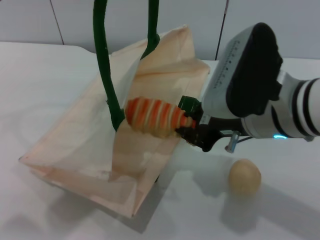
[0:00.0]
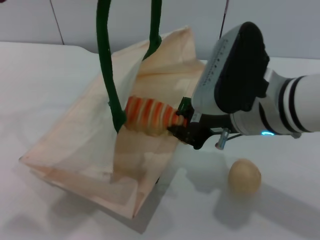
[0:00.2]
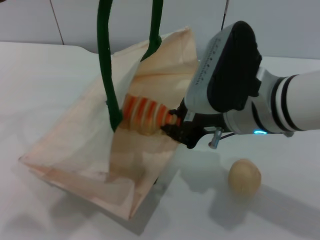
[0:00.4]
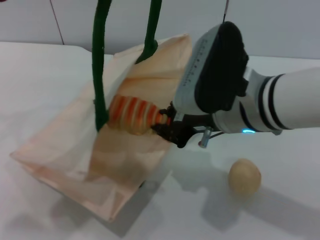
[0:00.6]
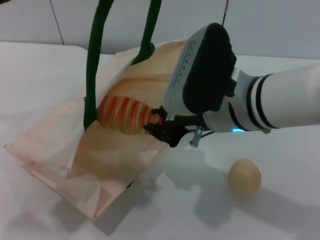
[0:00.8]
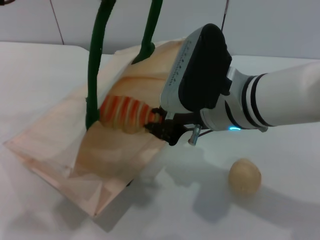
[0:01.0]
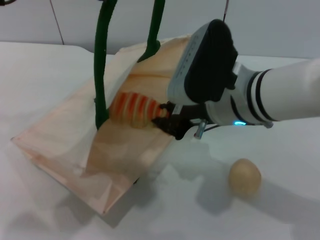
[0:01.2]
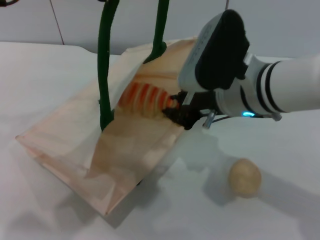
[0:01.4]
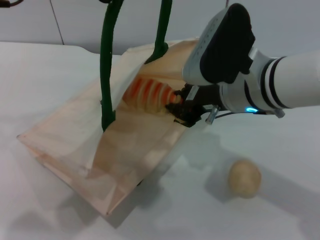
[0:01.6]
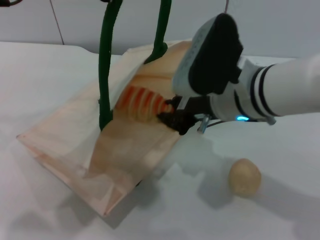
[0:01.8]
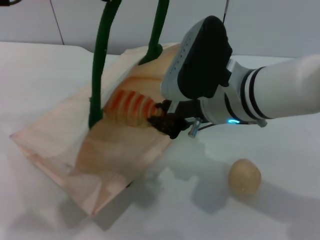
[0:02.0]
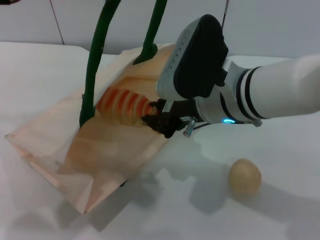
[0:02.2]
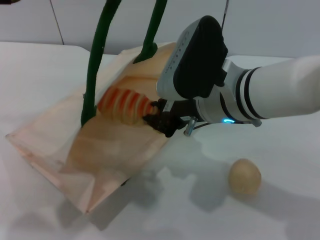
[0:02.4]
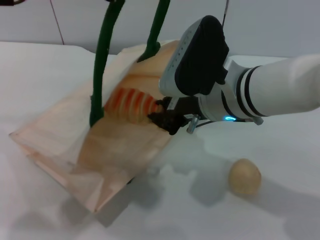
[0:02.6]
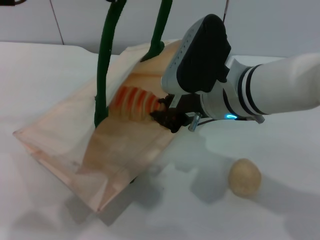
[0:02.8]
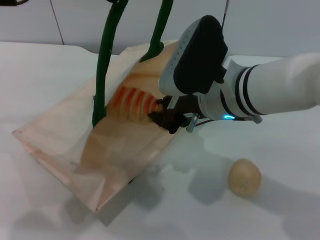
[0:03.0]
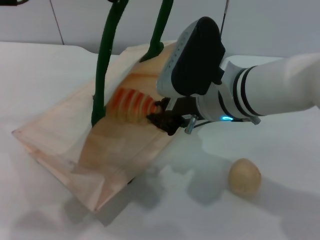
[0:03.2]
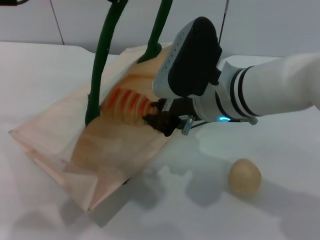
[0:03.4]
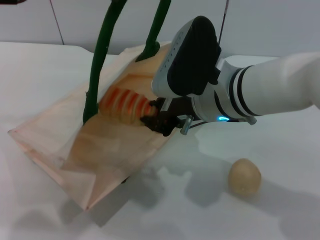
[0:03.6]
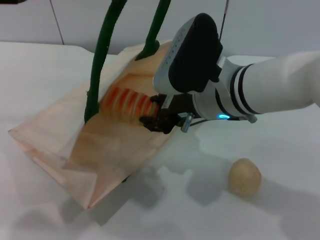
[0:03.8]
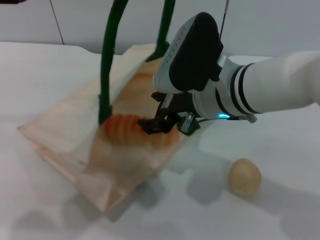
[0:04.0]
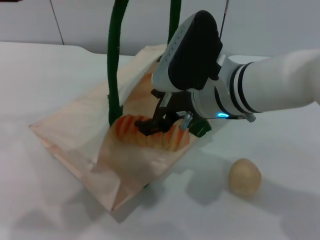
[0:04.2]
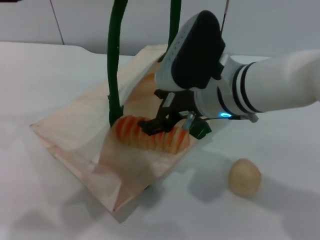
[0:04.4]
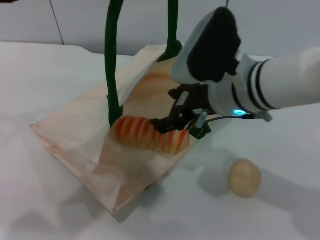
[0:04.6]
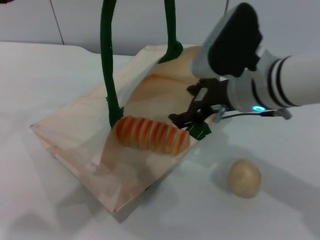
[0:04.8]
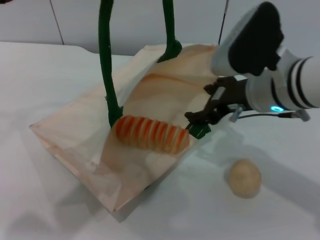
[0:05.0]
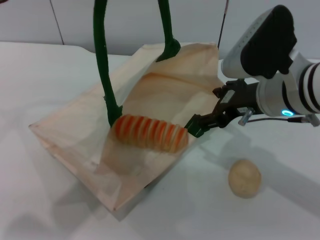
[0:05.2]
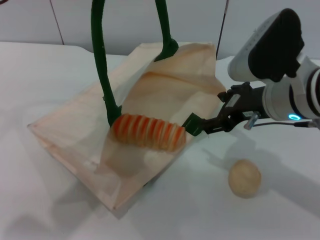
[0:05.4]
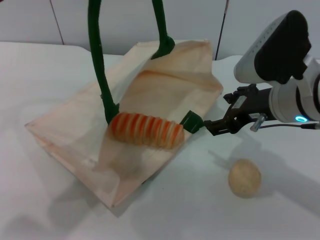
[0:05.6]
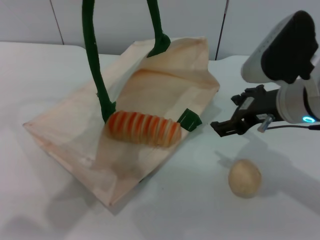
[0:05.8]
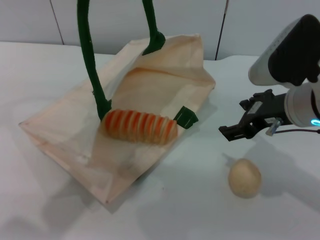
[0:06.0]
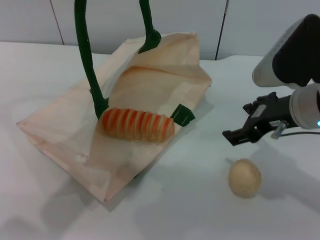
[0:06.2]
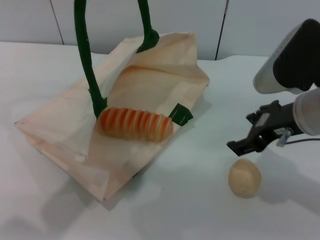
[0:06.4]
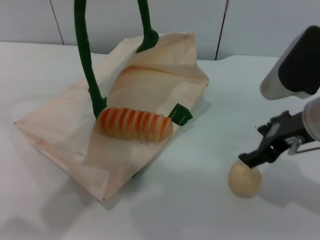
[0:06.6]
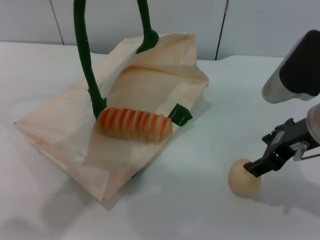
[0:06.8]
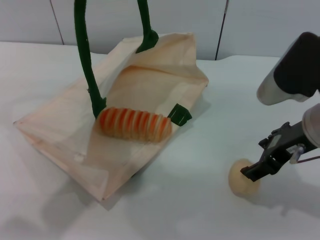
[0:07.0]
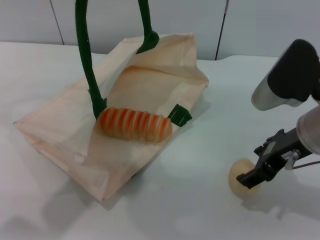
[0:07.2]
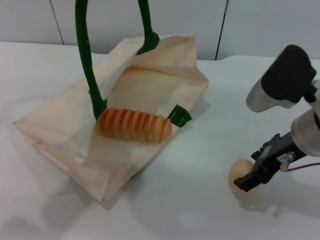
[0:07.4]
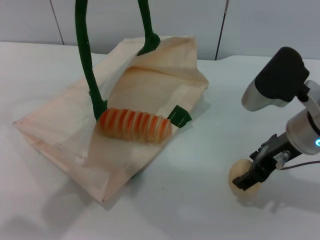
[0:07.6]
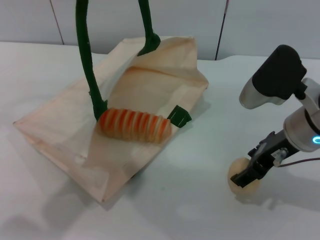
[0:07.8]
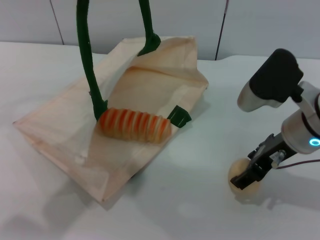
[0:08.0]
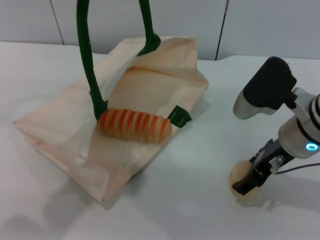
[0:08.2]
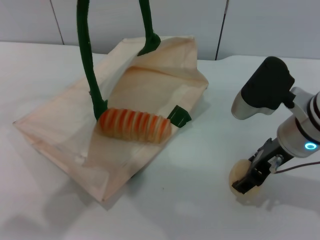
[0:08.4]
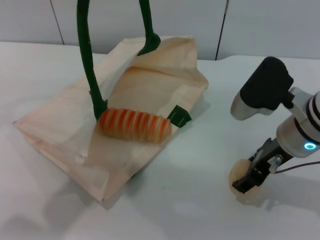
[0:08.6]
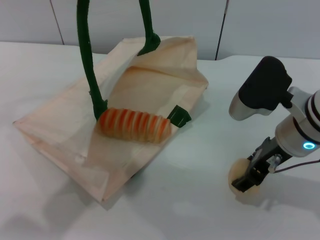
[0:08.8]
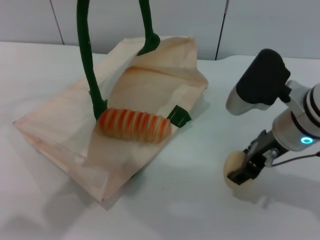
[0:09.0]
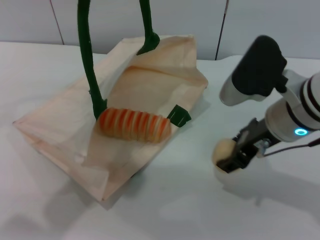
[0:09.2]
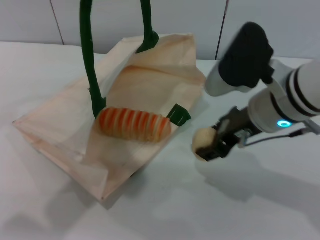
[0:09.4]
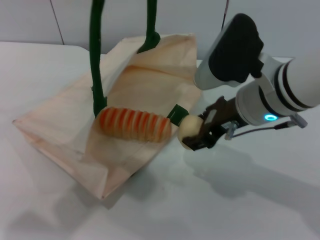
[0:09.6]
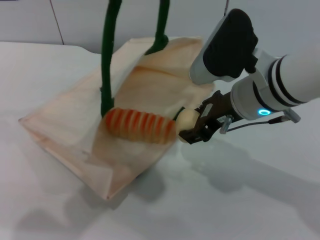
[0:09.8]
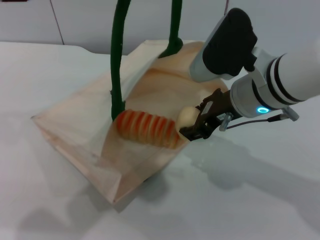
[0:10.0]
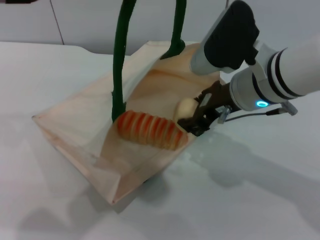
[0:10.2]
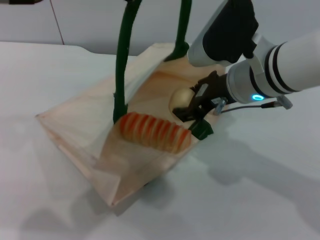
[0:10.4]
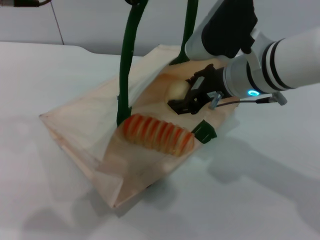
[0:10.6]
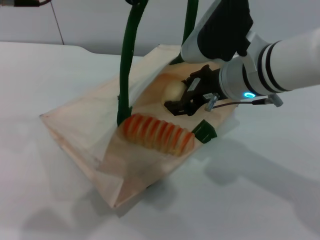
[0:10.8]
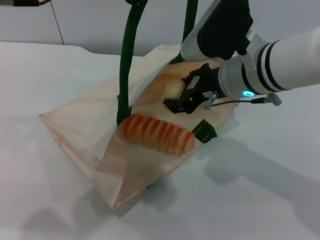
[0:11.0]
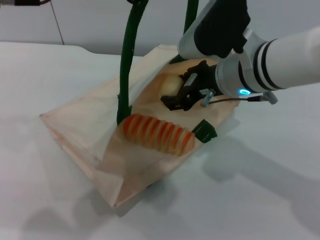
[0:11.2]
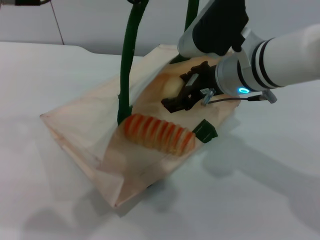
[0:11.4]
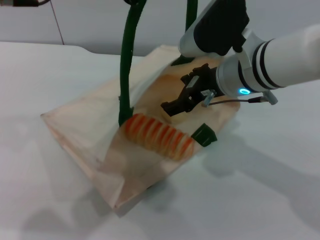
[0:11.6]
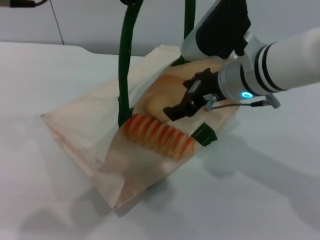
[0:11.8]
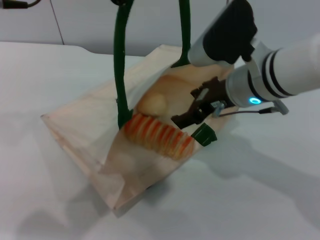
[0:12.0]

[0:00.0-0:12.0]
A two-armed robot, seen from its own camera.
Task of the whole recording: pick up the bread and egg yolk pastry from the table and place it in the white handbag.
Step, 0:00.0 to 0:04.6: Place the bread into the woven bag with the right gripper.
Step, 0:05.0 to 0:09.0: Pick up the egg yolk pastry with the right gripper.
Step, 0:09.4 to 0:11.8: Place the egg yolk pastry into the woven bag with the right gripper.
0:00.0 to 0:01.6: The right gripper changes place by approximately 5 cm.
0:01.6 to 0:03.0: The grippers make only small movements.
0:03.0 to 0:04.4: The right gripper opens up.
0:04.4 to 0:06.0: The right gripper moves to the right, approximately 10 cm.
0:07.6 to 0:09.0: The grippers make only small movements.
0:09.0 to 0:10.4: The right gripper travels to the left by approximately 5 cm.
0:10.4 to 0:12.0: The right gripper opens.

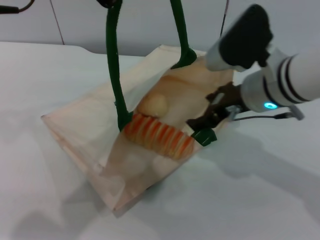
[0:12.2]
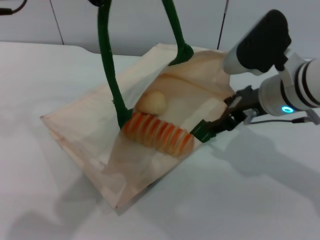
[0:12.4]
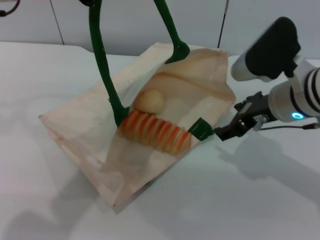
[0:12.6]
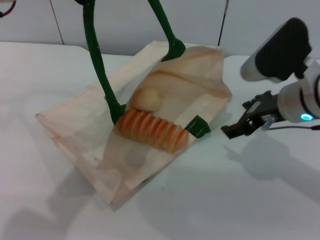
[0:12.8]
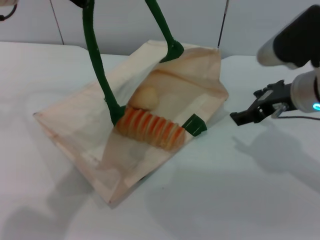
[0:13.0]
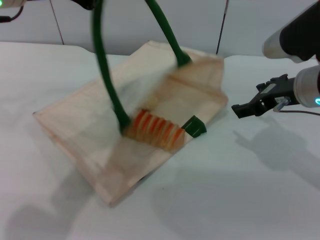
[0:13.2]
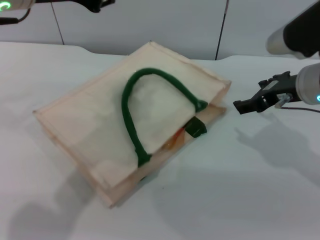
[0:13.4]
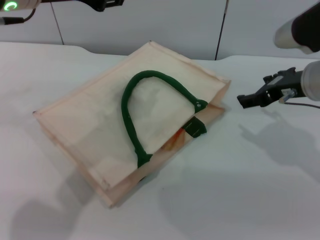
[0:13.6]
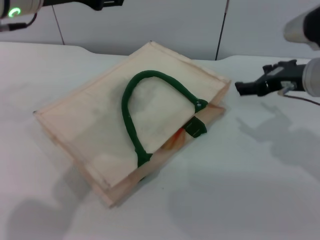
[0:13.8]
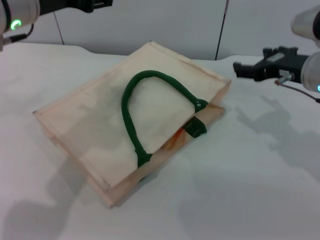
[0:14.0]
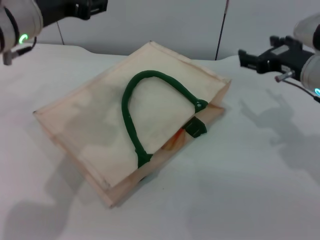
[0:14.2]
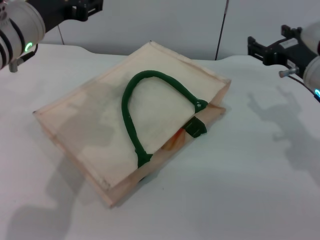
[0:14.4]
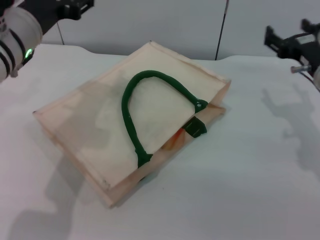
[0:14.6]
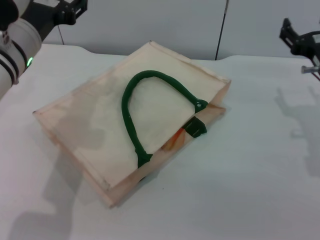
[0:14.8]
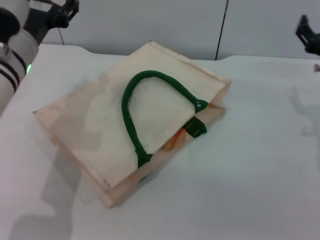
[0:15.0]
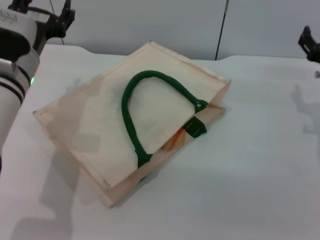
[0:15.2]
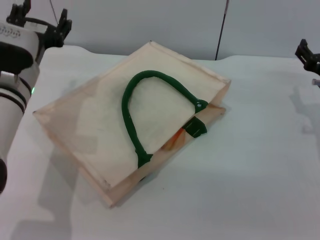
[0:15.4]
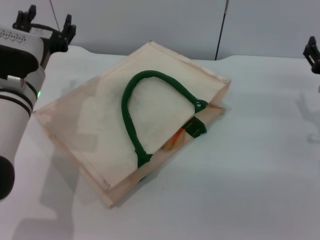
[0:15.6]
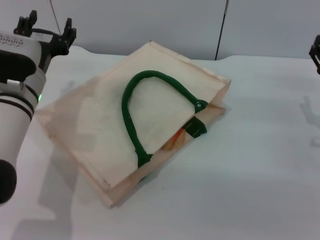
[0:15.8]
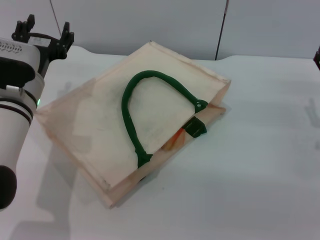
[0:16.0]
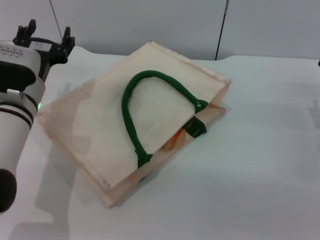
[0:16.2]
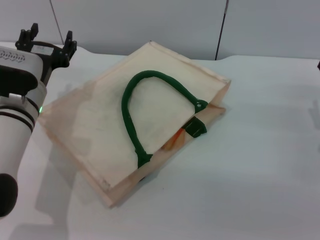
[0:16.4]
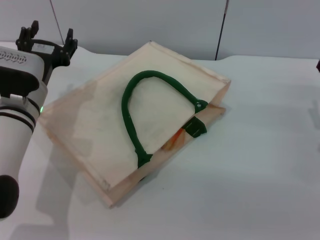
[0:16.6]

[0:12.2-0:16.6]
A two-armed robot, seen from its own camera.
Task of the whole recording: pick up the bread and egg yolk pastry from the table and place it in the white handbag.
Step, 0:12.2 to 0:13.6: Lower the woven bag with the left gripper to close it.
0:12.2 to 0:13.6: The right gripper shifts about 10 cm to the right.
0:13.6 to 0:15.2: The left gripper heads downward, covering roughly 15 cm, and opens up; the right gripper is displaced downward and to the right by roughly 10 cm.
0:15.2 to 0:16.6: The right gripper moves roughly 5 cm, while the left gripper travels downward by some 5 cm.

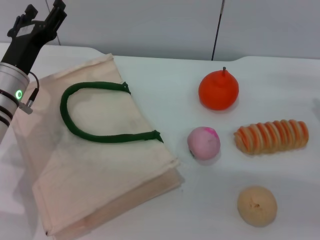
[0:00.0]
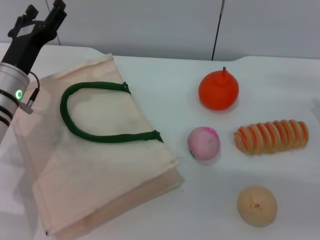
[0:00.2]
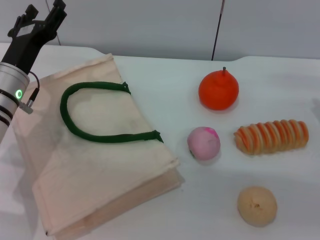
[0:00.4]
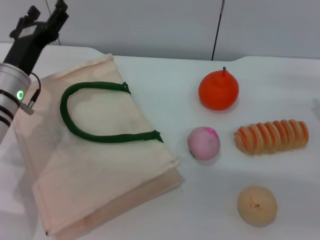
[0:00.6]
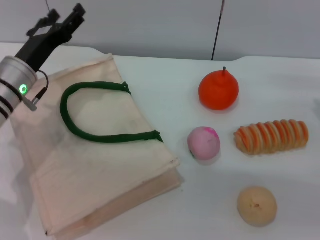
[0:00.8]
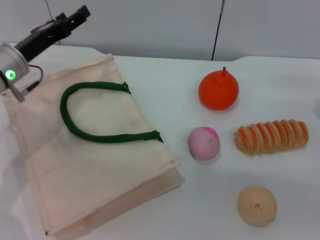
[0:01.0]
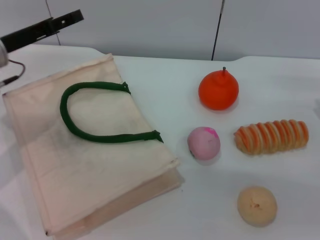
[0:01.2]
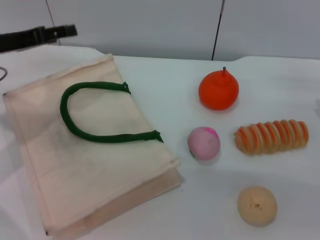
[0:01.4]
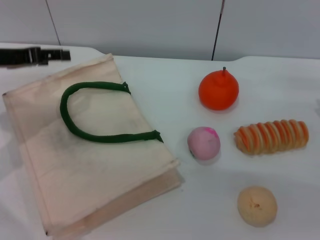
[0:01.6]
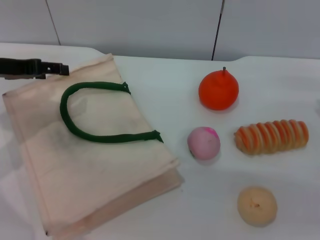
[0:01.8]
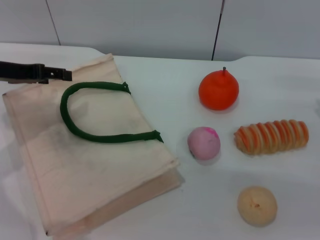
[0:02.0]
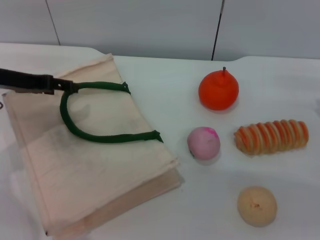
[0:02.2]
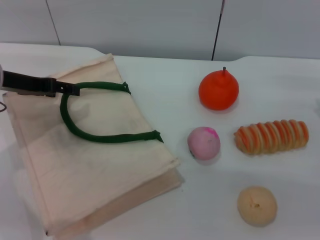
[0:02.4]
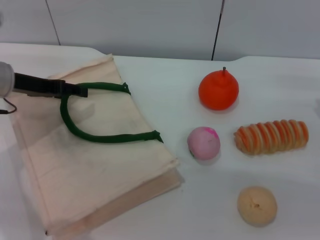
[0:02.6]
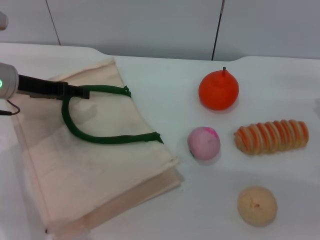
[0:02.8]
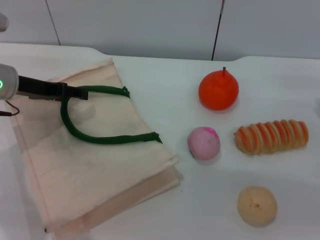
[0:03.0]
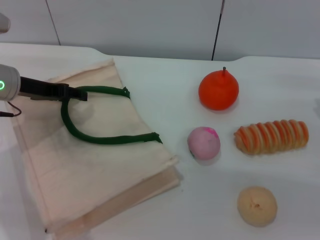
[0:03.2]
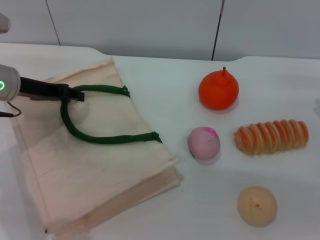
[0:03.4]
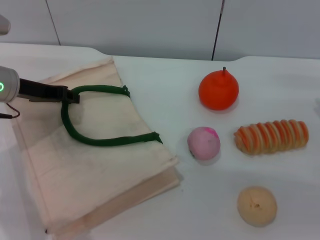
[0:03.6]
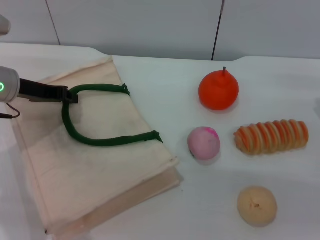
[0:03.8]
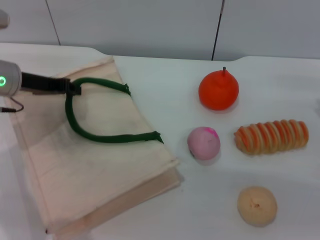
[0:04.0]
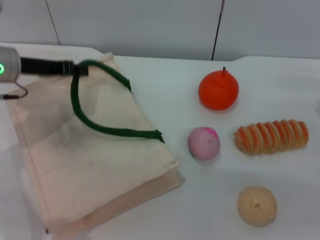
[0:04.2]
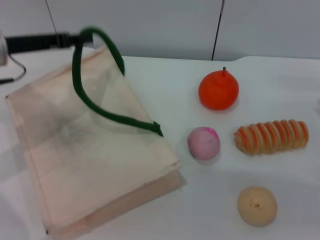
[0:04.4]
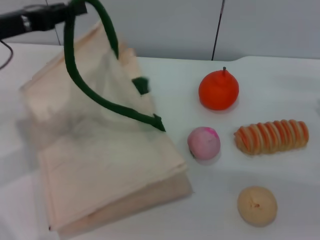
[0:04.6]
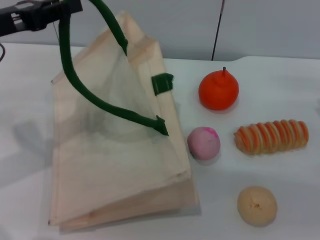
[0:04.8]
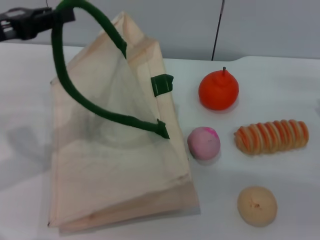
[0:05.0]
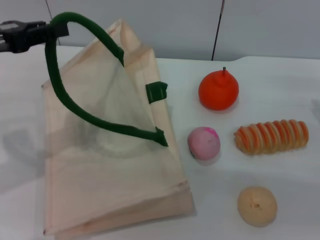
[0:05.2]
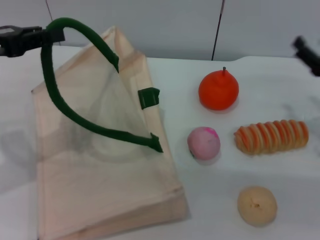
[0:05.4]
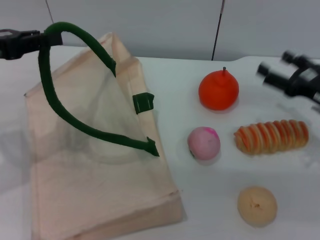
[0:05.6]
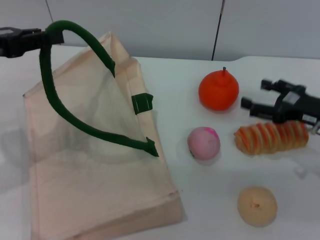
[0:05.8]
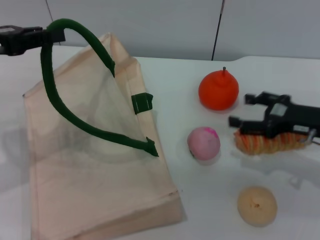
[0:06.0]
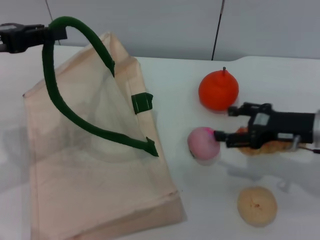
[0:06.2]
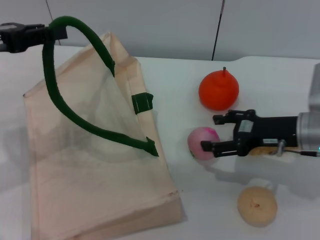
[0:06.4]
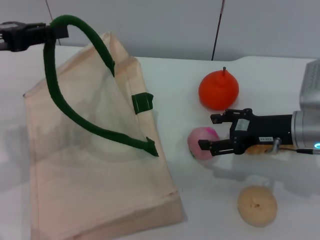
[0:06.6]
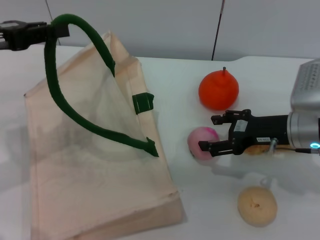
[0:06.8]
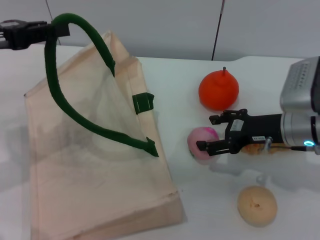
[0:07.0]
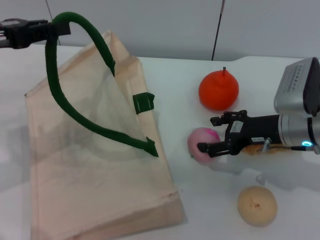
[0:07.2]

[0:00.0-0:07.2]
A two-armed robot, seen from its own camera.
Task of the whole recording: pick up the peach from the table and place it in the white handbag.
Step, 0:00.0 to 0:05.0: Lift the woven bag with the left gripper to open it.
0:00.0 to 0:01.4: The left gripper travels upward and to the left by approximately 10 cm.
0:02.8 to 0:04.4: The left gripper closes up.
0:04.4 to 0:05.8: The left gripper heads backward, covering roughly 5 cm.
0:05.8 to 0:07.2: The right gripper moves to the left, about 10 cm.
